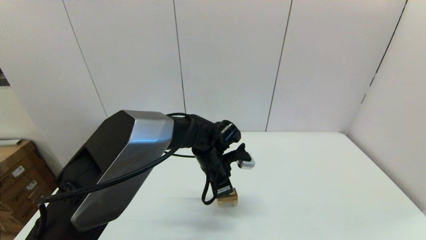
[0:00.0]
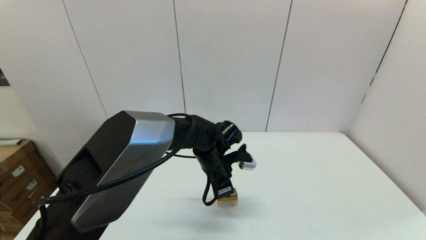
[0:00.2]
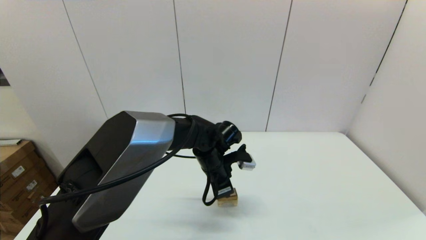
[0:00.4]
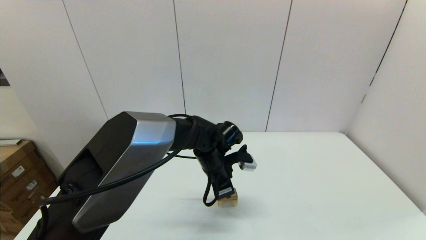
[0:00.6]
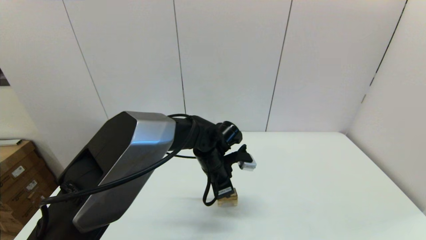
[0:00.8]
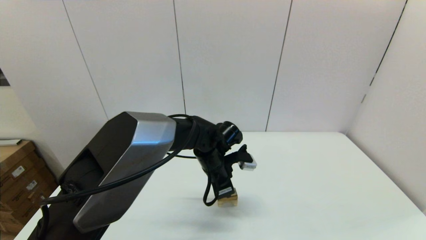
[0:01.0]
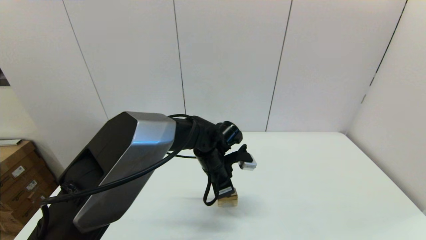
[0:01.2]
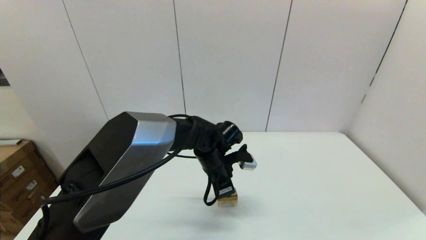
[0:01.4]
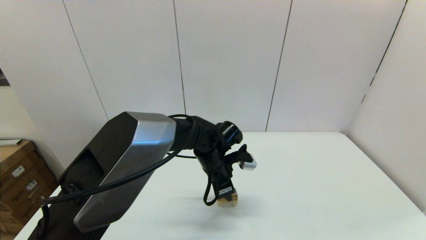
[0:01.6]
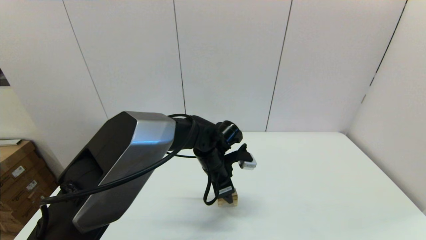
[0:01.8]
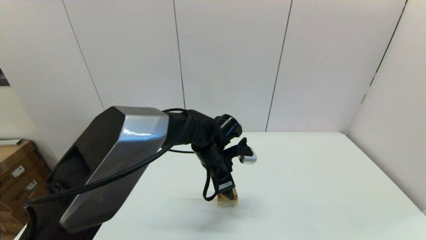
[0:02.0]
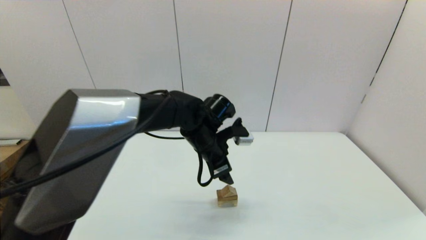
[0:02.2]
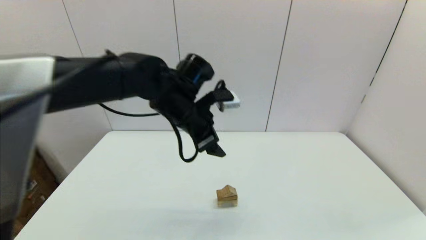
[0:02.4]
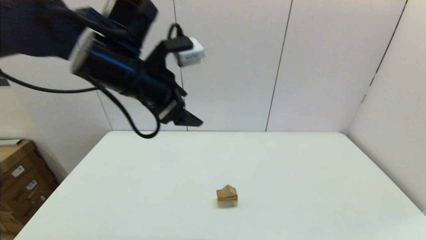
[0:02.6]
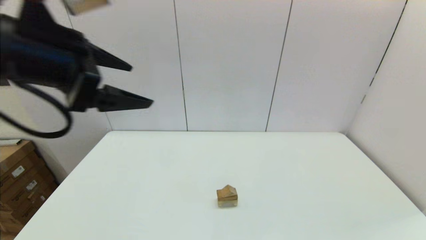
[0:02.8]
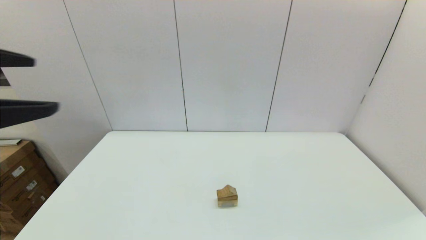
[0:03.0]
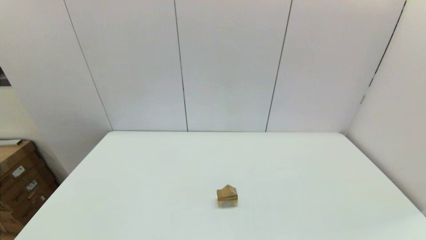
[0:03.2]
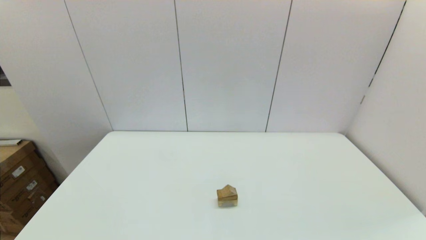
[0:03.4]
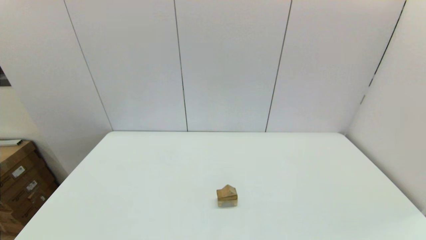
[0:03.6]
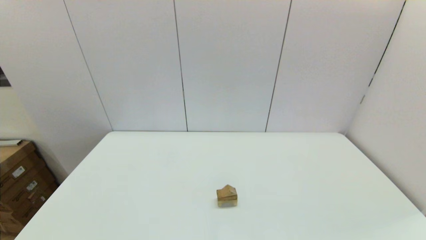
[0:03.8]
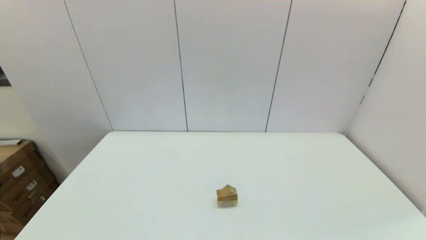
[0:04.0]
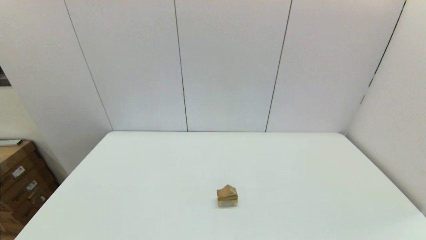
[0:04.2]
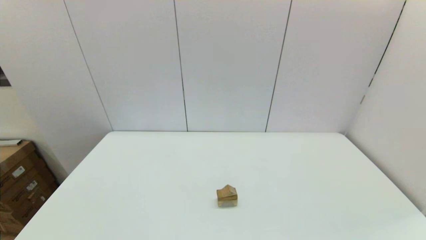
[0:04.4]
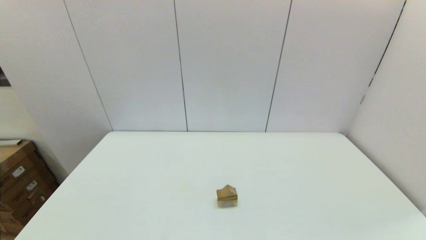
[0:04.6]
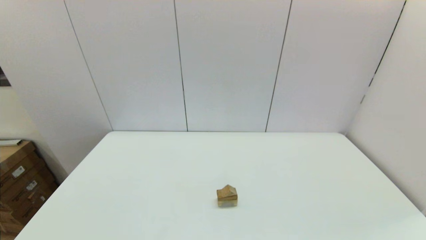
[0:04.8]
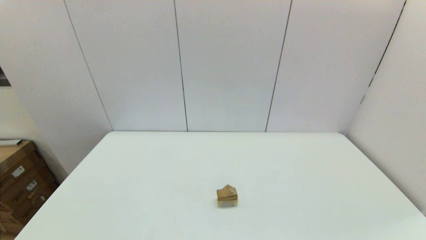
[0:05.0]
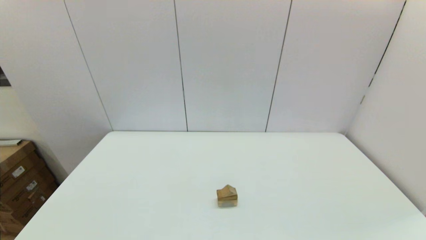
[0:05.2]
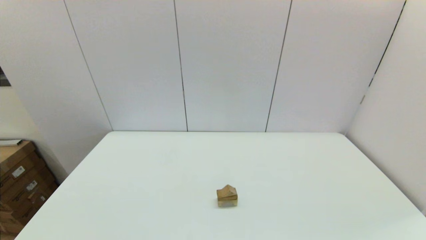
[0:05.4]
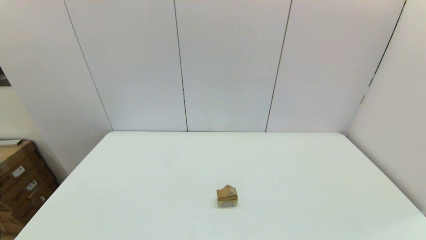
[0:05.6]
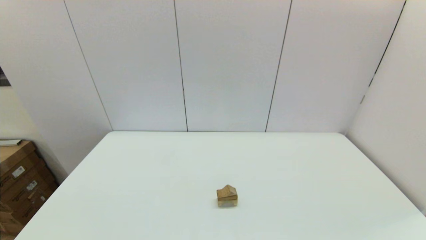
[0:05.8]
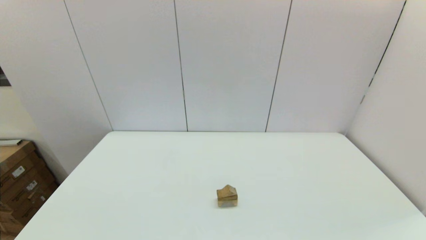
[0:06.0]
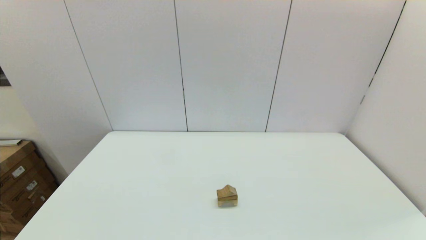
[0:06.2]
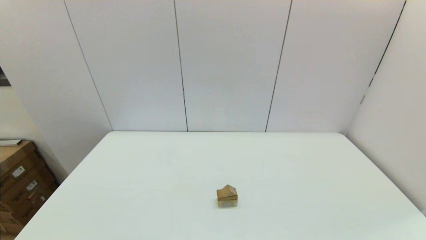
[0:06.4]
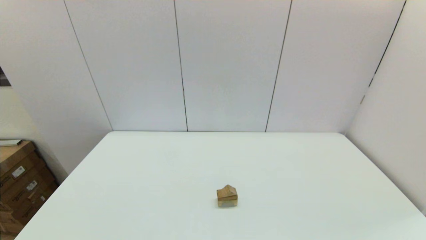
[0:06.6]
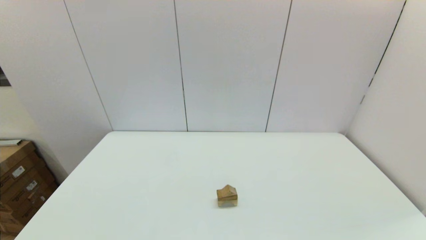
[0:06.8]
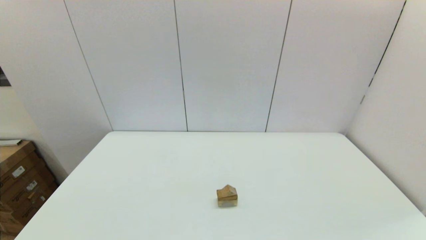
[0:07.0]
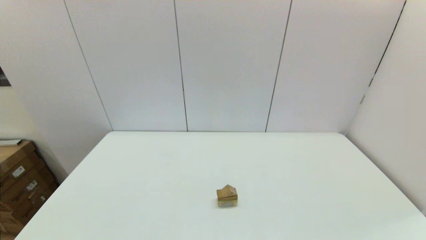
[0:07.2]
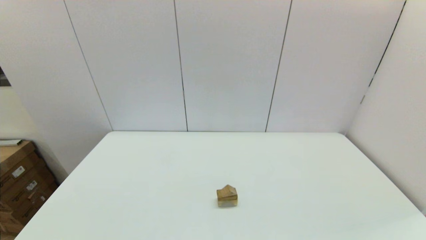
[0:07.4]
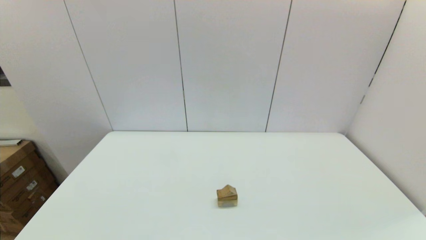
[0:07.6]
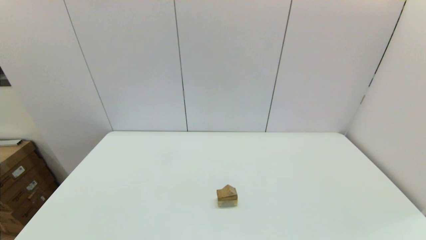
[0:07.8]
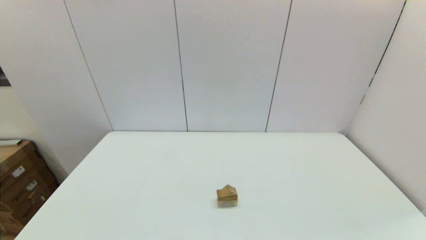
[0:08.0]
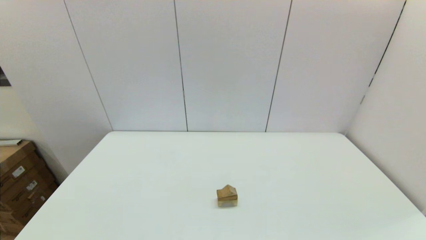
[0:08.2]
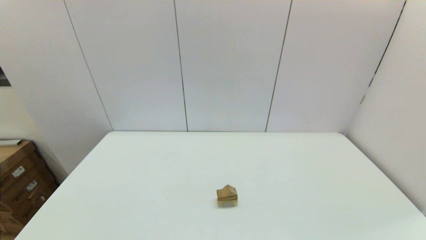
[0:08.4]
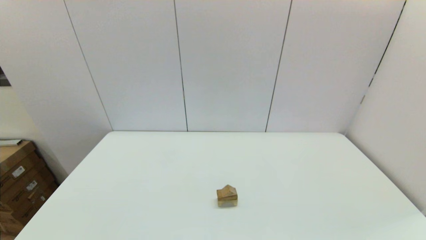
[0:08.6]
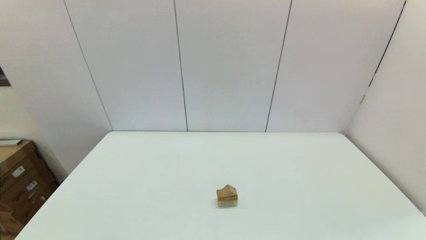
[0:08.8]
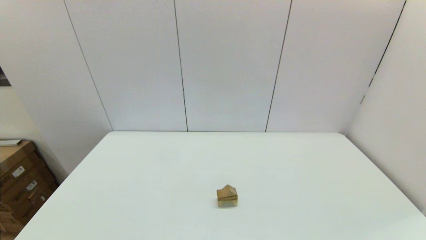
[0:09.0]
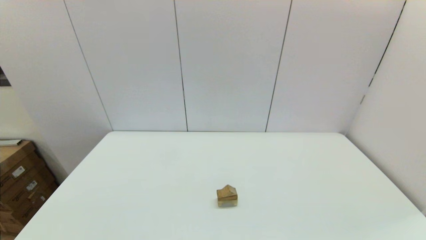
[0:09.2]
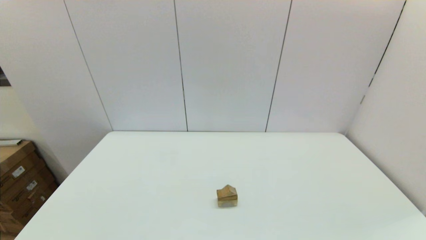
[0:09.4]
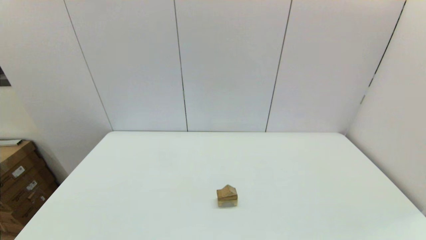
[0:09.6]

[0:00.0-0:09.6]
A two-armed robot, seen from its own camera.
Task of the whole recording: place the arched building blocks in the center of the table, set up the rectangular building blocks, and then set up the triangular building blocks.
0:00.0 to 0:01.6: The left gripper opens its fingers.
0:01.6 to 0:03.2: The left gripper moves backward, to the left and upward, about 50 cm, and opens its fingers.
0:08.0 to 0:09.6: Both grippers stay about where they are.

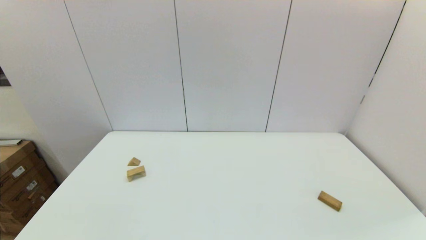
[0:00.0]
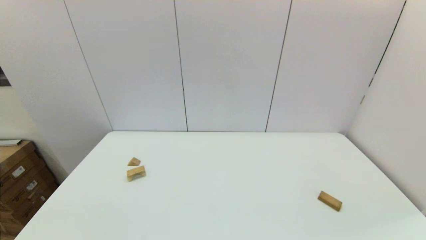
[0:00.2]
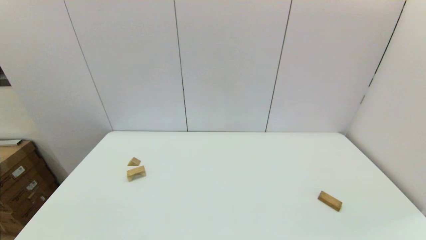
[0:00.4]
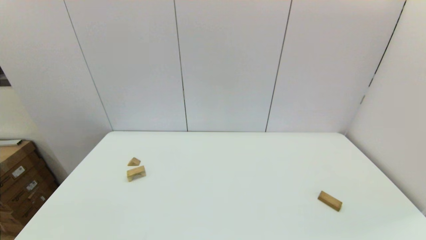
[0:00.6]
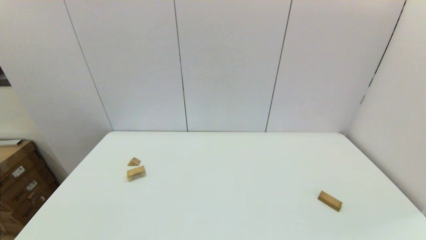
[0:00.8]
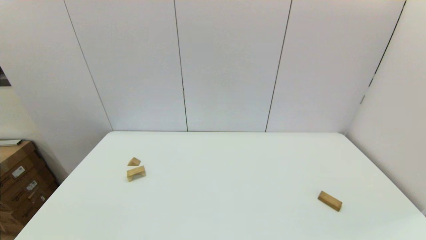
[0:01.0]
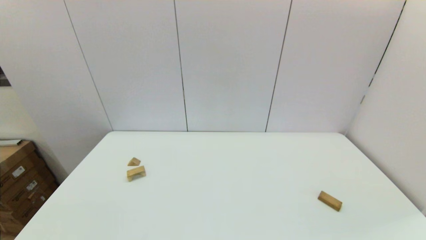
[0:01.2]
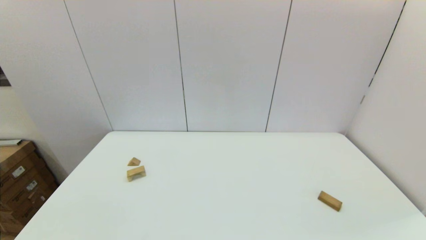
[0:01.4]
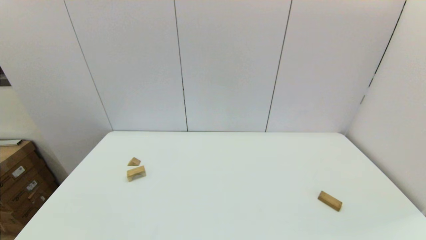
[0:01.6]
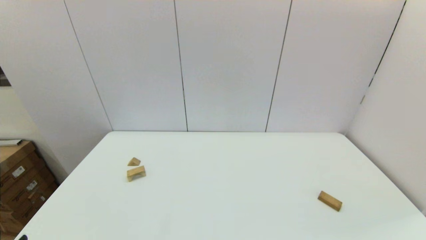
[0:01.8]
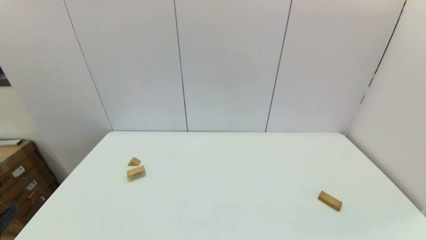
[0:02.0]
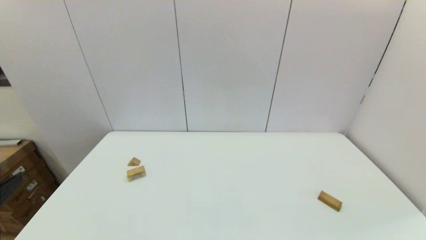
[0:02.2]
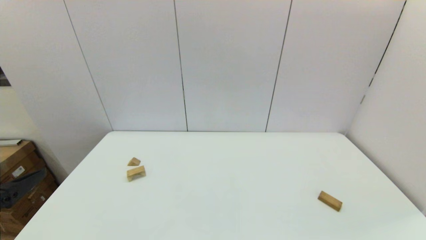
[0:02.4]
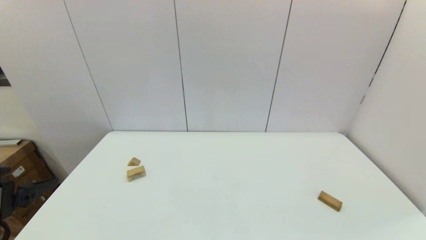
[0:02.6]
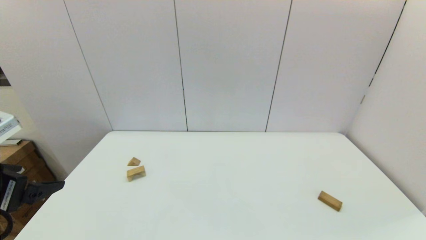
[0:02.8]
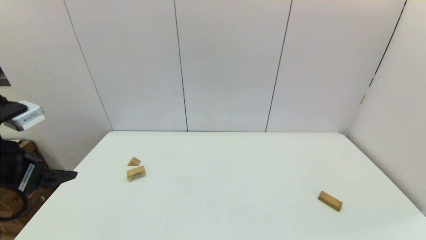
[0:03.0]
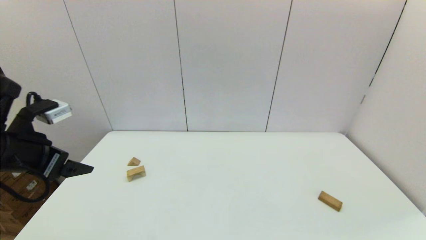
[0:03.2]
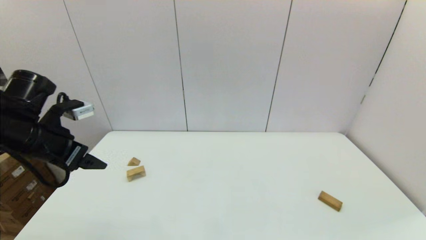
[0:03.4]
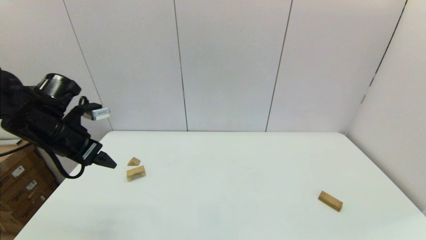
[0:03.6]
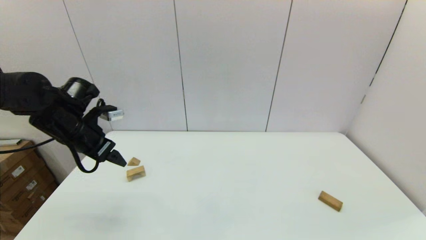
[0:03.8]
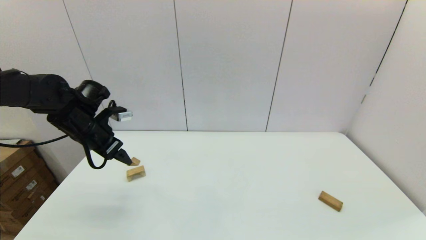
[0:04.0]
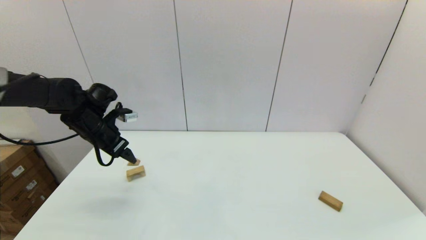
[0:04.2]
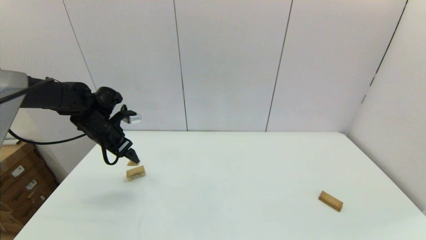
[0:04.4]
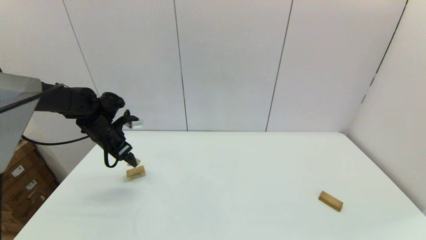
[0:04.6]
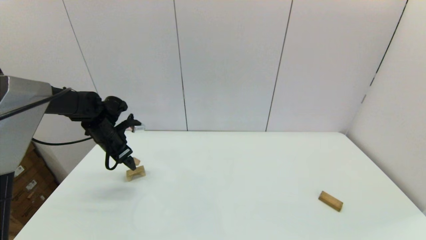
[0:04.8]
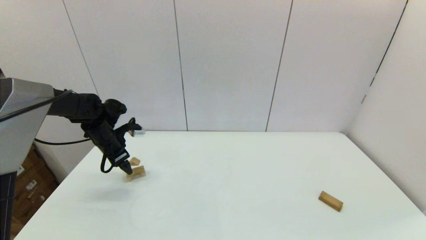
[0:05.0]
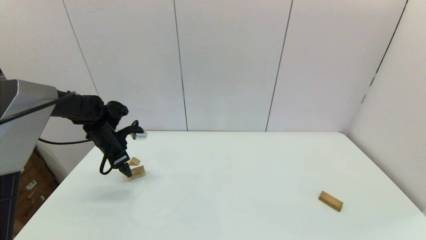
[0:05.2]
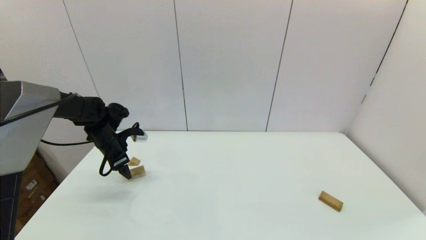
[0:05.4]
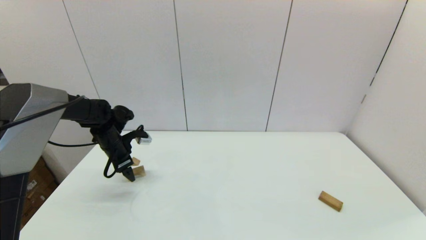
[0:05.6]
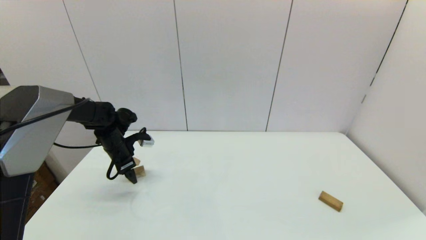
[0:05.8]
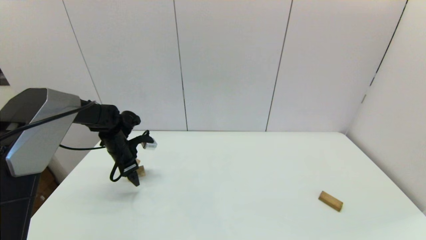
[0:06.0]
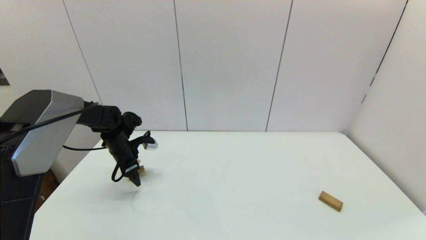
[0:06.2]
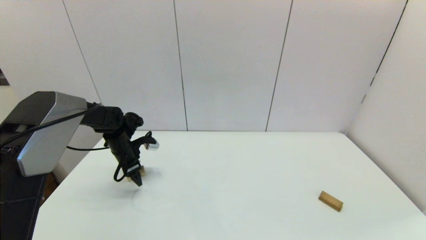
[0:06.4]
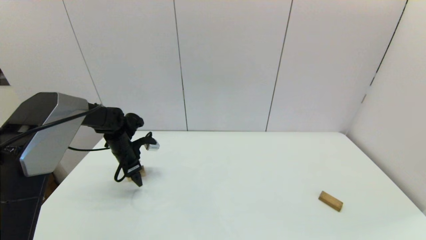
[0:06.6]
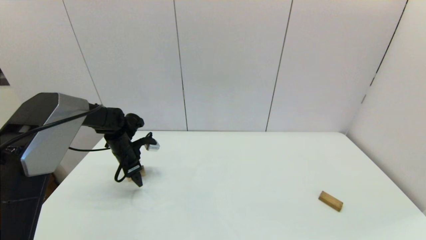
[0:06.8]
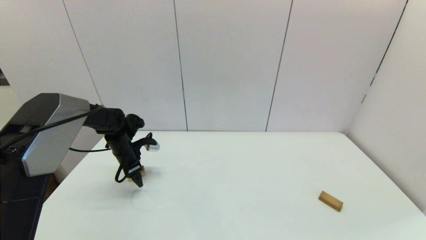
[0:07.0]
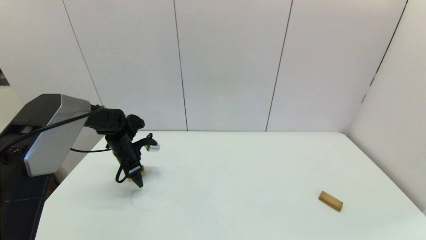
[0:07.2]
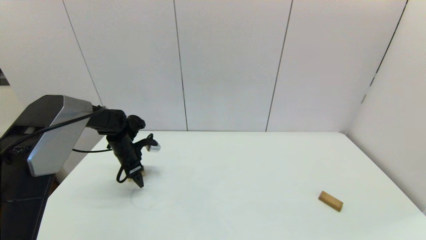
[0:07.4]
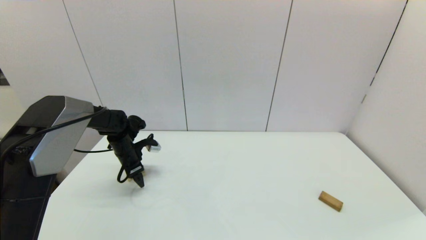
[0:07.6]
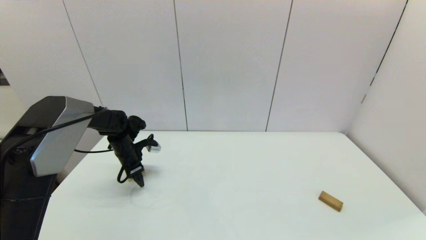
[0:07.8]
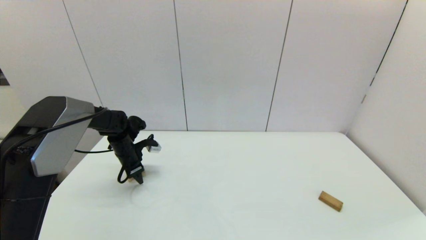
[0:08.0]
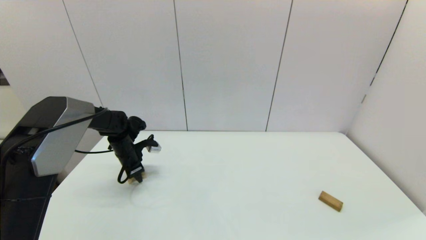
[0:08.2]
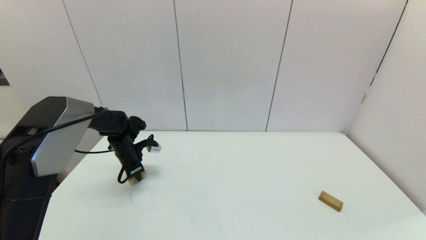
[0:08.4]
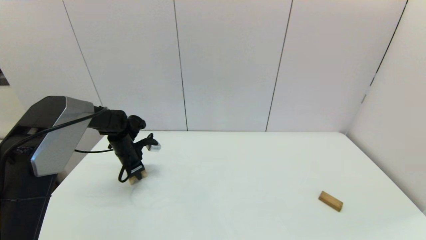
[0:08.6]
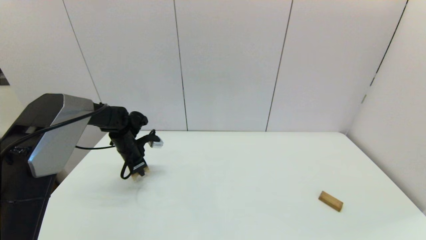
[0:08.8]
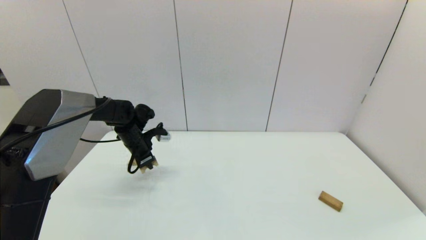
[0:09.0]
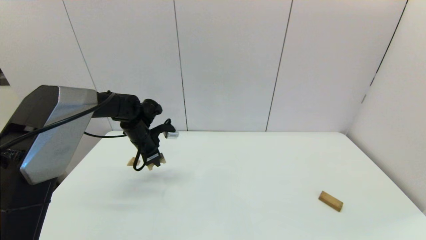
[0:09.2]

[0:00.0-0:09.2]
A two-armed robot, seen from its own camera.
Task of the whole recording: place the arched building blocks in the center of the table, set up the rectangular building blocks, and then set up the triangular building blocks.
Step, 0:02.0 to 0:08.4: Grasp the arch-shaped block with the left gripper.
0:01.6 to 0:03.0: The left gripper shifts some 25 cm forward and upward.
0:03.0 to 0:04.6: The left gripper shifts some 25 cm forward and downward.
0:04.6 to 0:06.2: The left gripper heads downward, covering about 5 cm.
0:06.2 to 0:07.6: The grippers move only a little.
0:07.6 to 0:09.2: The left gripper goes approximately 10 cm to the right and upward, and closes.
